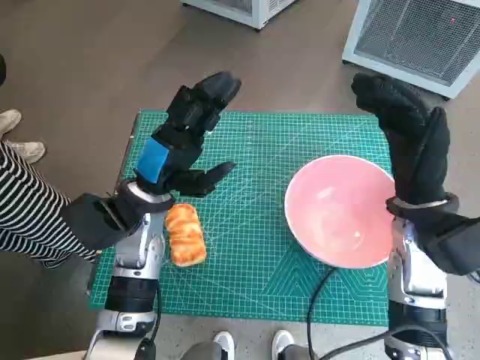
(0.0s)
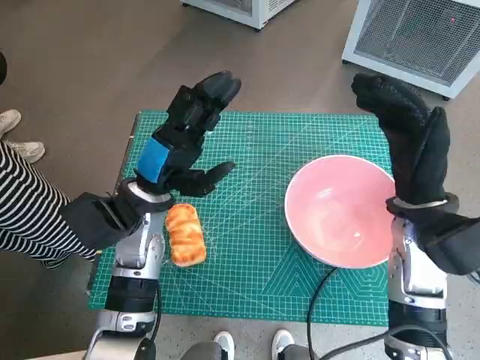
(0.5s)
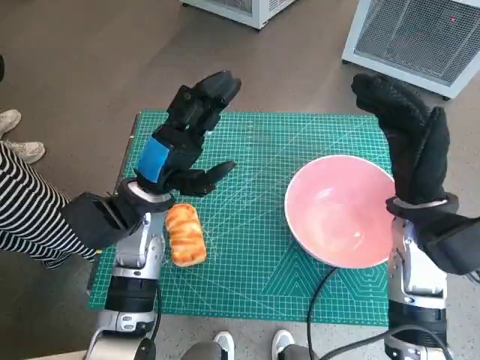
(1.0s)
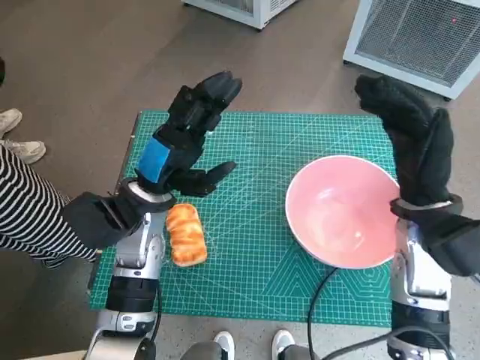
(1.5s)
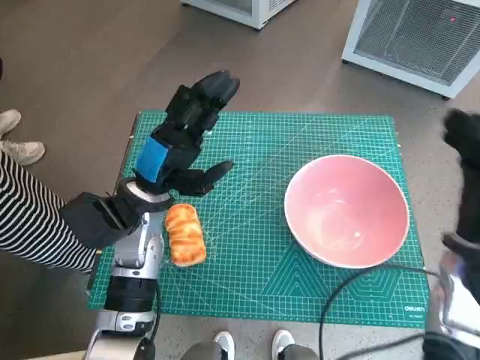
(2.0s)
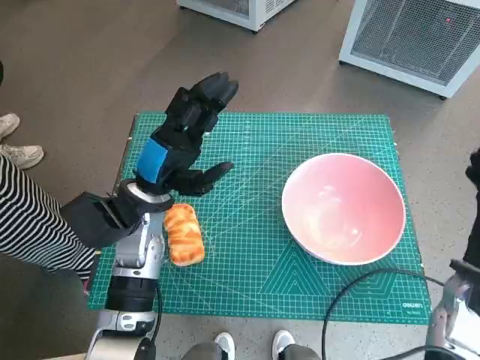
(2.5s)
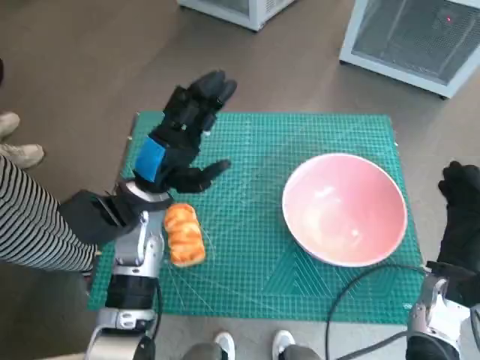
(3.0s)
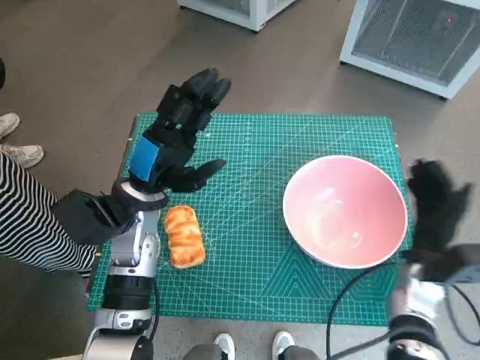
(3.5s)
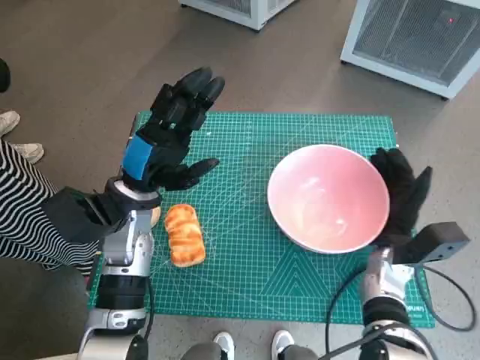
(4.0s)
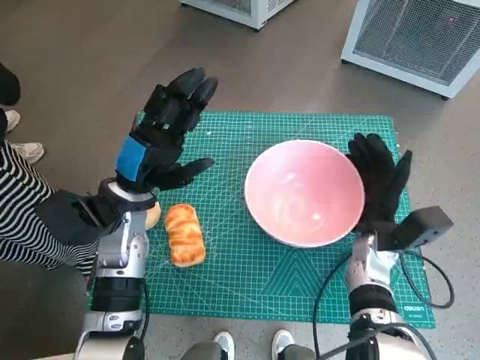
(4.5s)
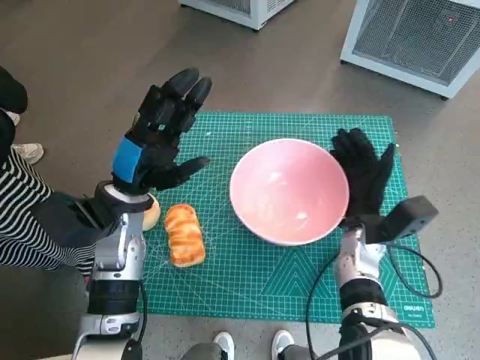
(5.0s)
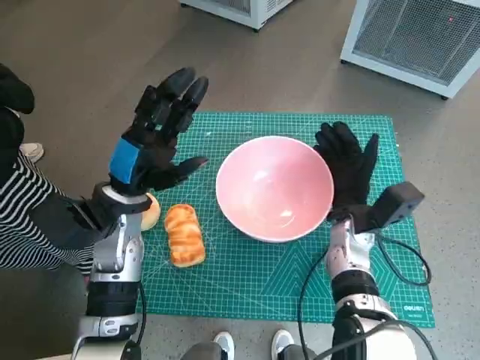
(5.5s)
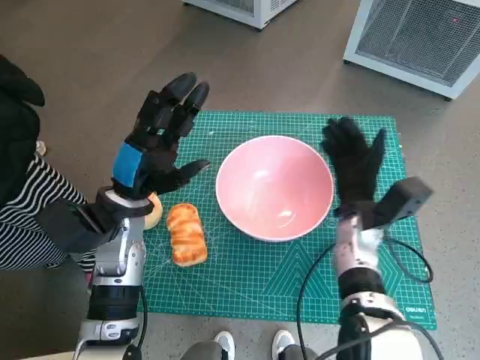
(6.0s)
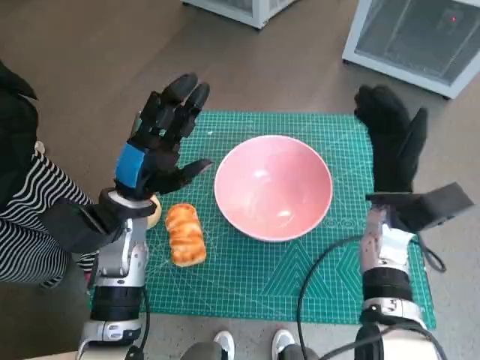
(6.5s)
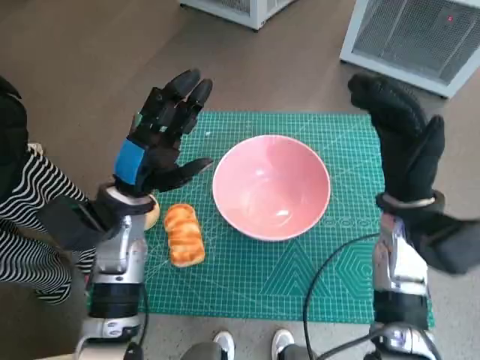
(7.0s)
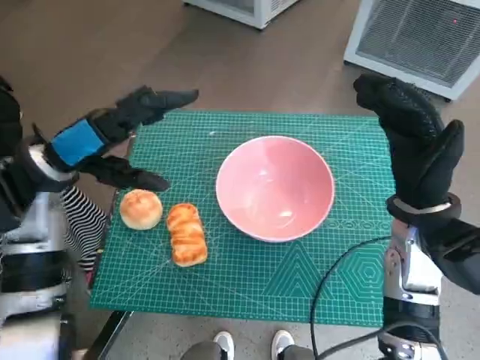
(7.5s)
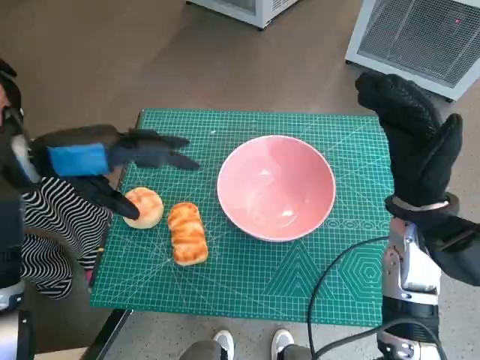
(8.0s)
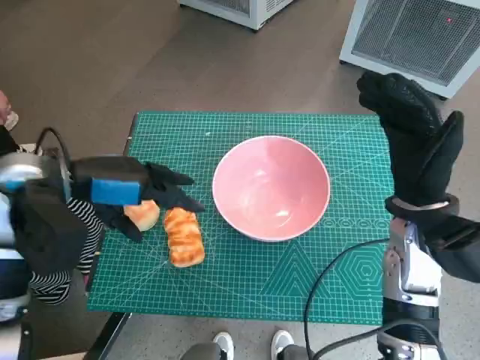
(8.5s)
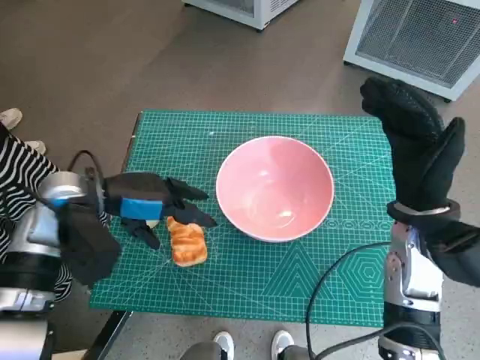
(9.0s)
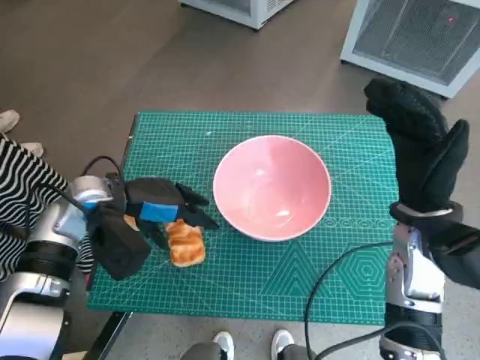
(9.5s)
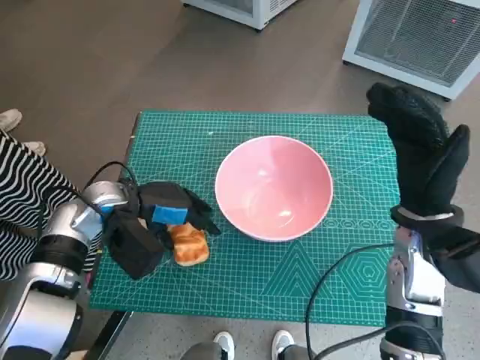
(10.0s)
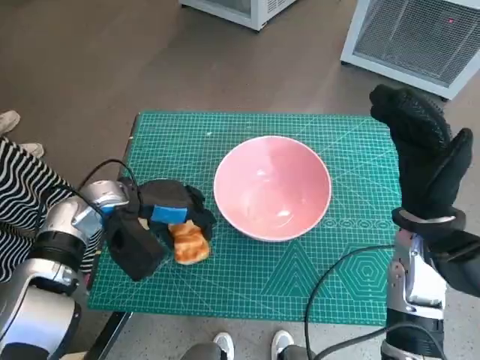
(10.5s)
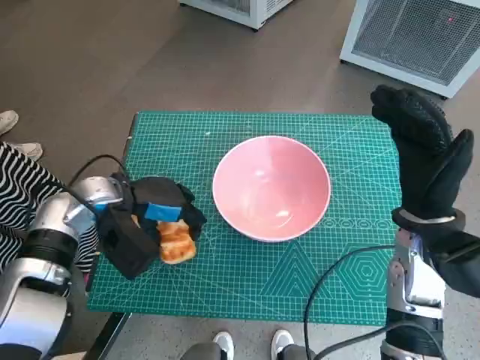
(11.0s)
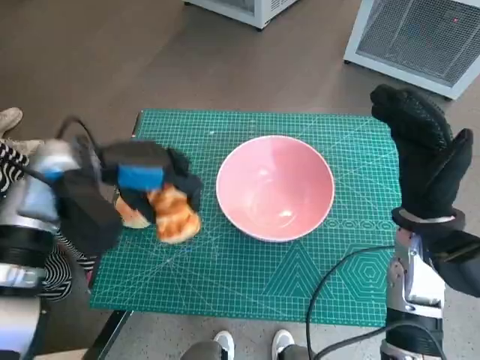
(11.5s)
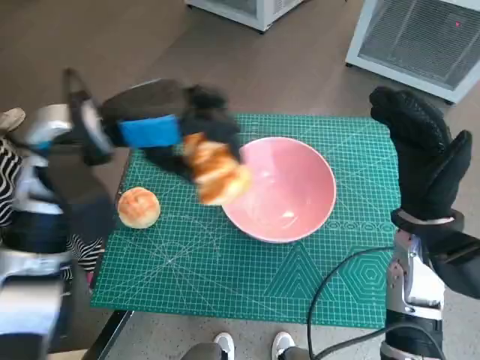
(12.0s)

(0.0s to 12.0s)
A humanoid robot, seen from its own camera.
Task of the whole recording: Push the bowl into the center of the table and put the bread into the bowl.
Step, 0.0s - 6.0s: Move the pink bowl to the center of table with right hand.
Step, 6.5s - 10.5s: Grasp the long bread with left hand.
2.0s - 4.0s: The right hand travels downward by approximately 10 cm.
4.0s - 6.0s: The right hand is displaced to the left by about 5 cm.
6.0s - 8.0s: The left hand moves upward and to the left, approximately 15 cm; the right hand travels upward by roughly 10 cm.
8.0s - 10.0s: The left hand shifts about 15 cm downward.
10.0s - 12.0s: The left hand is displaced upward by roughly 15 cm.

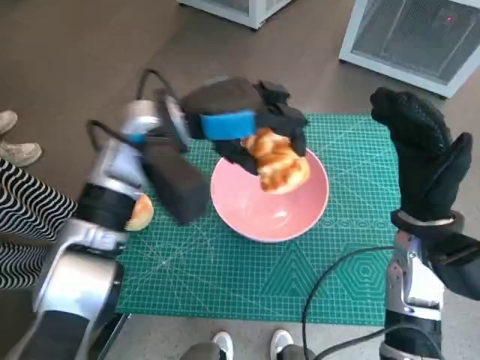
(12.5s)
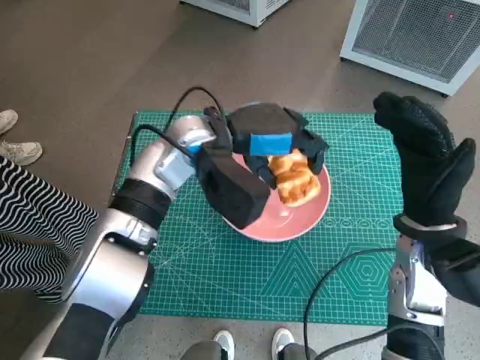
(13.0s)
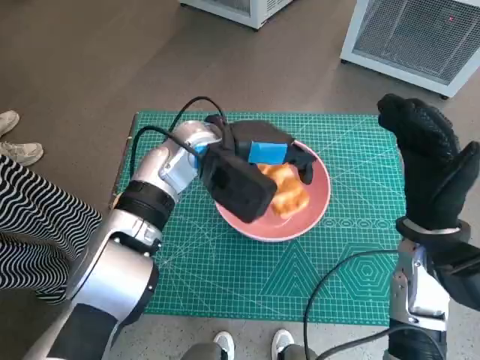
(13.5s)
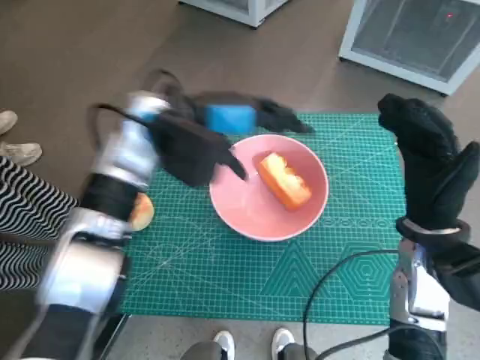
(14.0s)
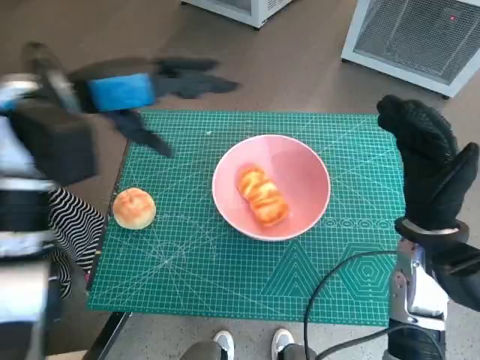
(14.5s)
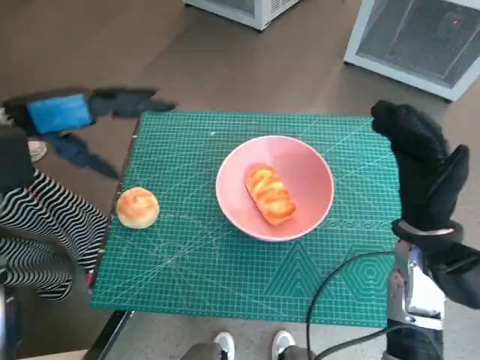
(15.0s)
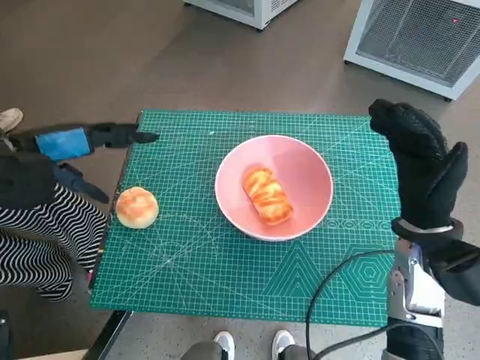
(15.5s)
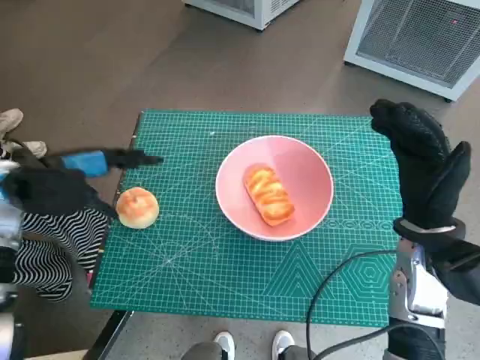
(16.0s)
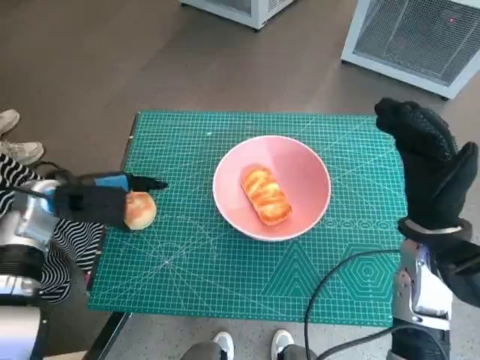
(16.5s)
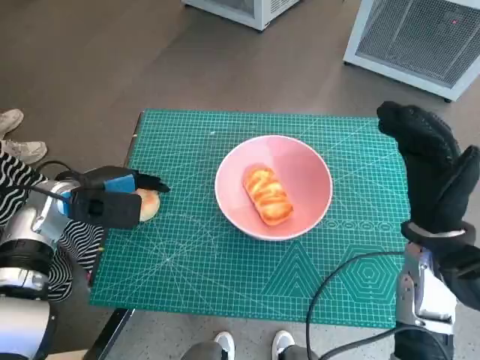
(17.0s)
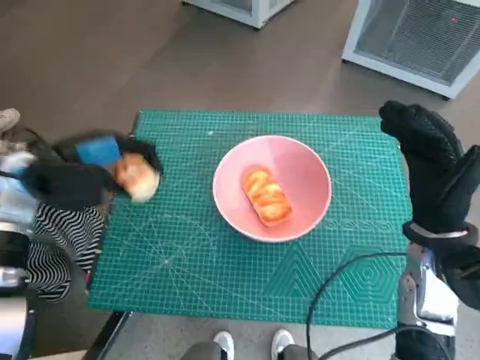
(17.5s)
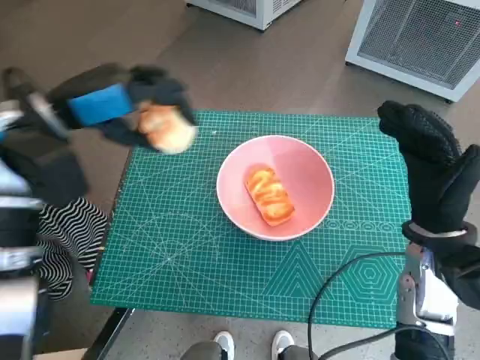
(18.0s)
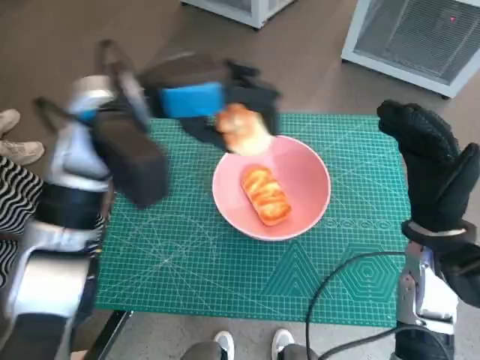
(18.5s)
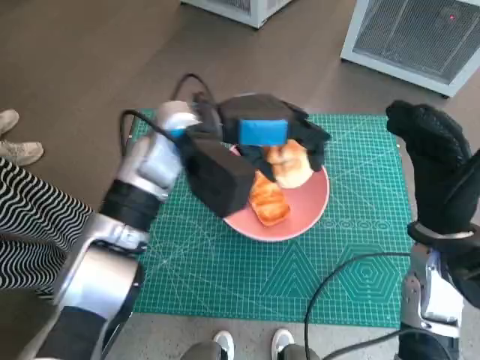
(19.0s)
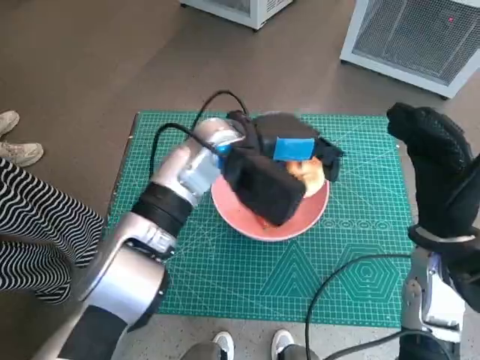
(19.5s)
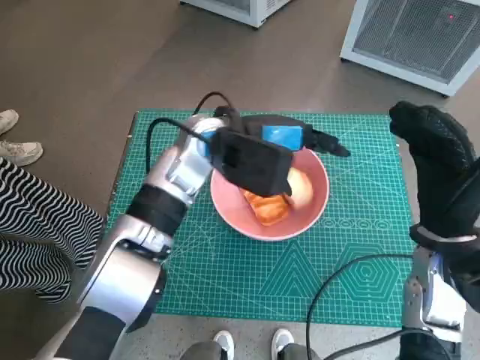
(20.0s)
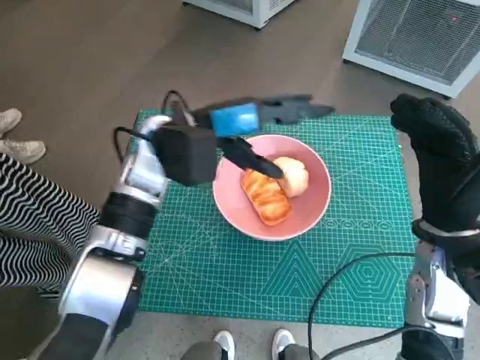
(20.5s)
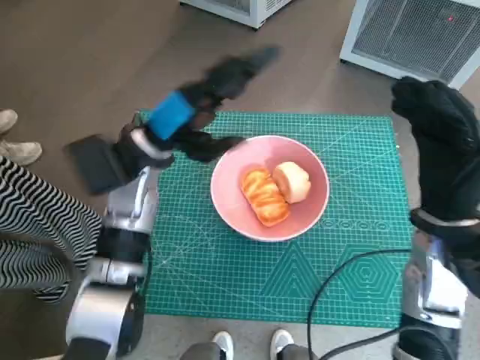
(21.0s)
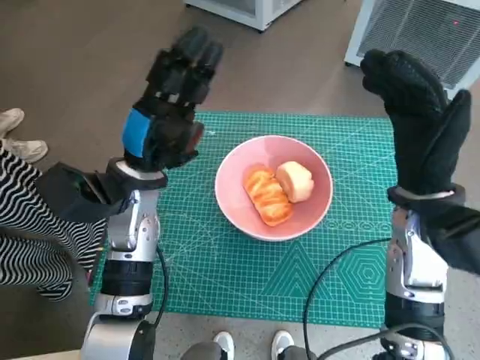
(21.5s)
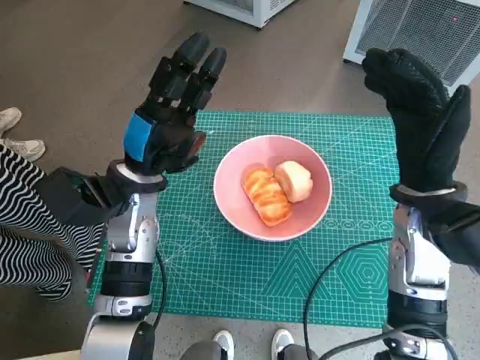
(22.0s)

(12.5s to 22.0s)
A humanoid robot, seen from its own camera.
Task of the whole recording: Push the bowl into the center of the table and put the bread into the bowl.
Step, 14.5s - 17.0s: Grasp the round bread with left hand.
Step, 17.5s - 20.0s: Place the round bread in pink bowl with left hand.
12.5s - 14.5s: The left hand travels to the left by about 10 cm.
14.5s - 16.5s: The left hand is displaced downward and to the left by roughly 15 cm.
16.5s - 18.0s: The left hand travels upward by about 10 cm.
18.0s - 20.0s: The left hand moves to the right, roughly 20 cm.
20.0s - 22.0s: The left hand goes about 15 cm to the left, downward and backward; the right hand shifts by roughly 5 cm.

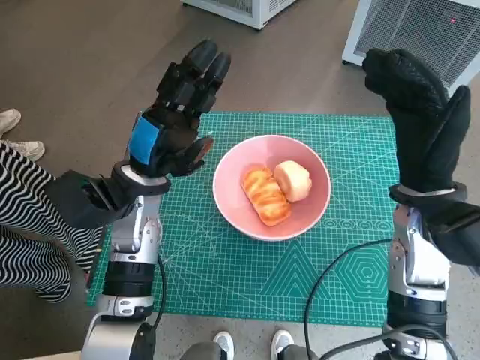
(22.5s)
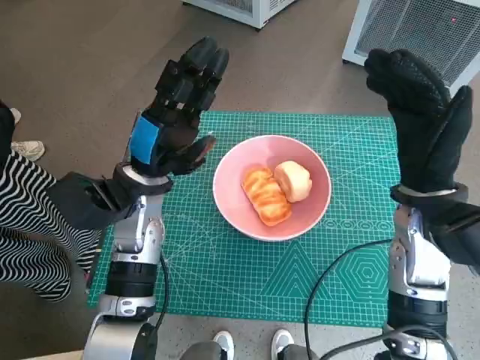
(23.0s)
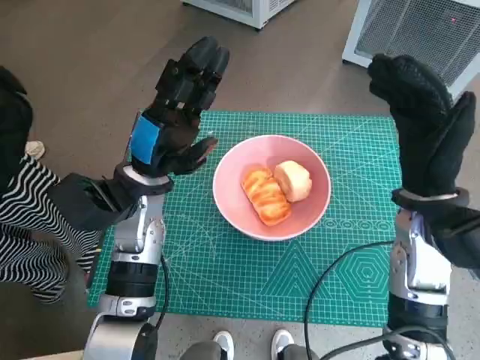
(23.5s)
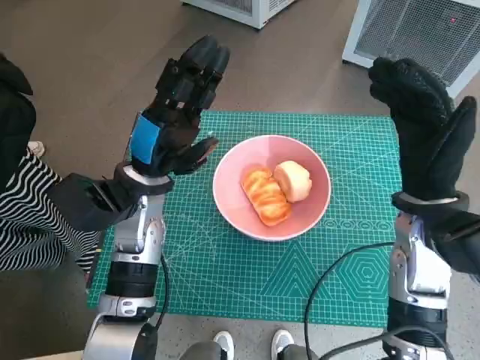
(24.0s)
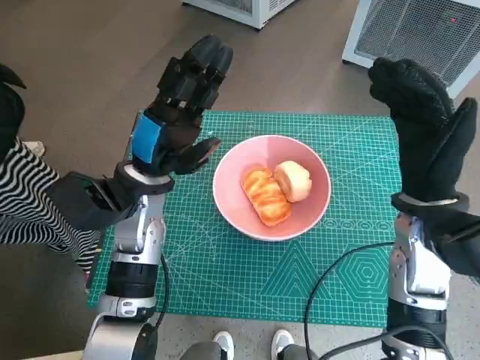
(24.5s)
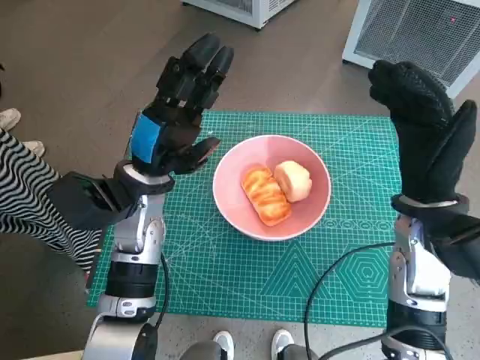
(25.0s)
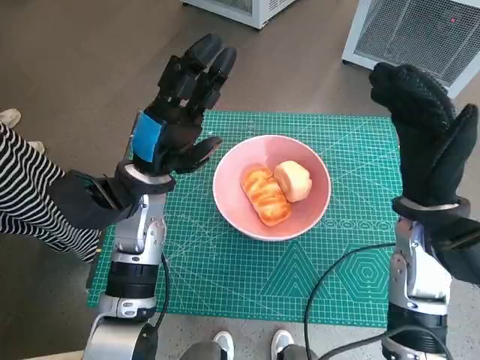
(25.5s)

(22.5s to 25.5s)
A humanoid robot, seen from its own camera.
Task of the whole recording: Push the bowl into the center of the table and put the bread into the bowl.
22.5s - 25.5s: Both hands stay about where they are.

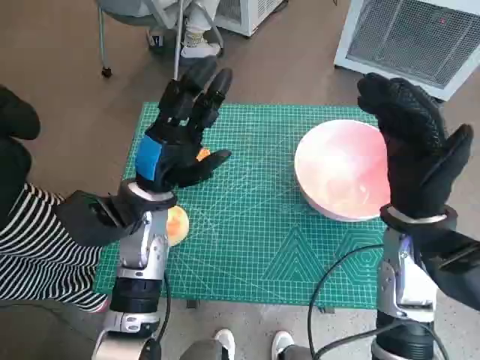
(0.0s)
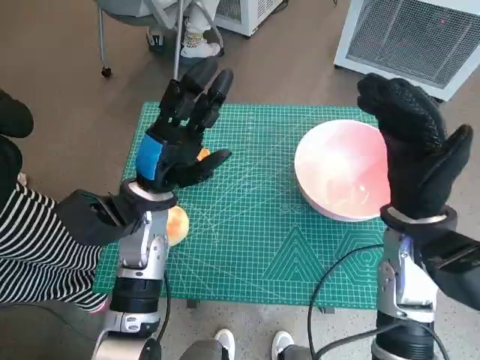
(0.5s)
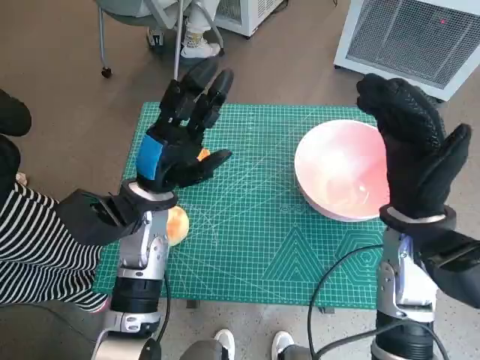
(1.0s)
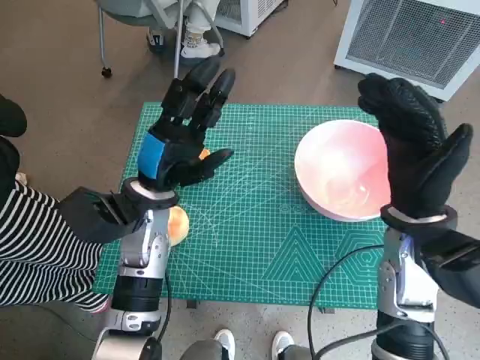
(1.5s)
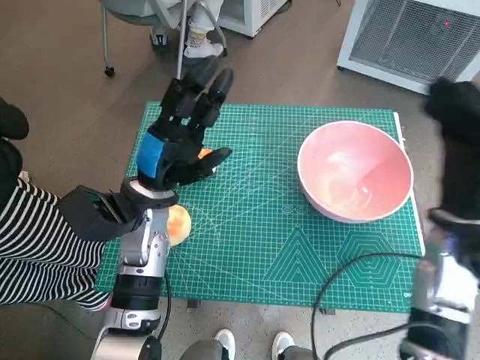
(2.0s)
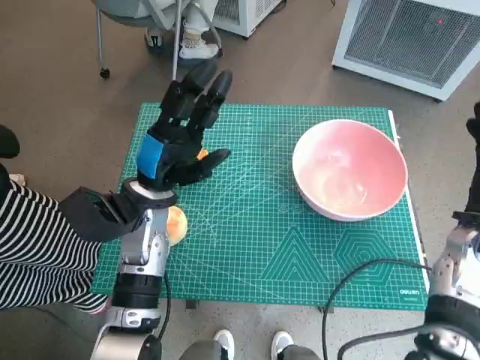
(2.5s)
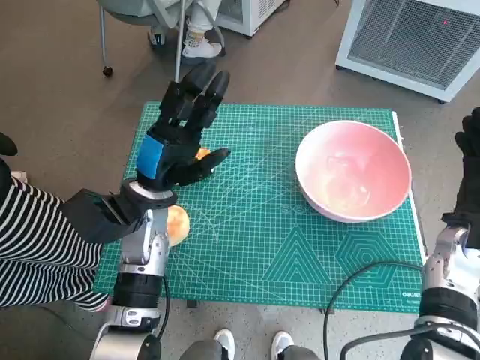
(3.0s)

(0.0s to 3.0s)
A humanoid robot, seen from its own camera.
Task of the whole recording: Push the bowl into the center of the table and put the bread into the bowl.
1.5s - 3.0s: The right hand moves to the right and downward, about 10 cm.
